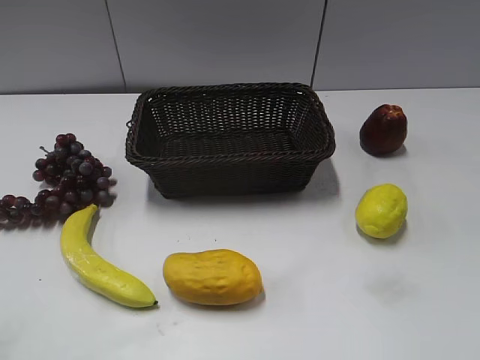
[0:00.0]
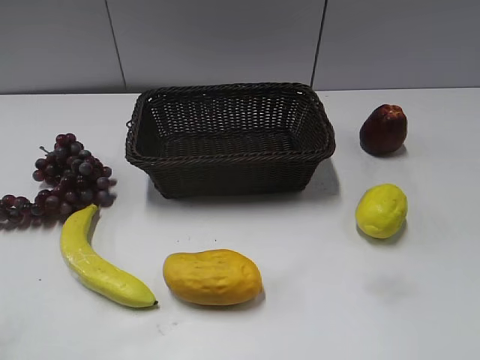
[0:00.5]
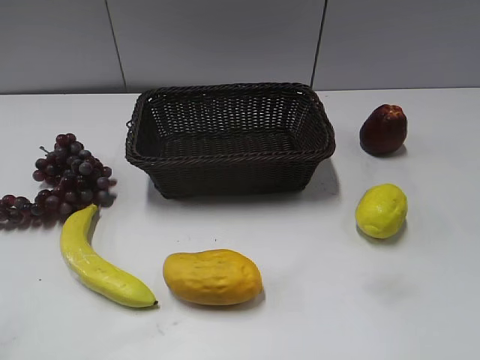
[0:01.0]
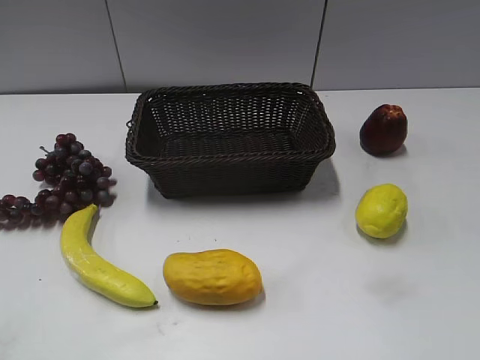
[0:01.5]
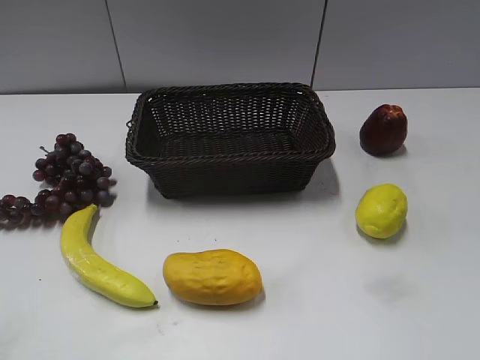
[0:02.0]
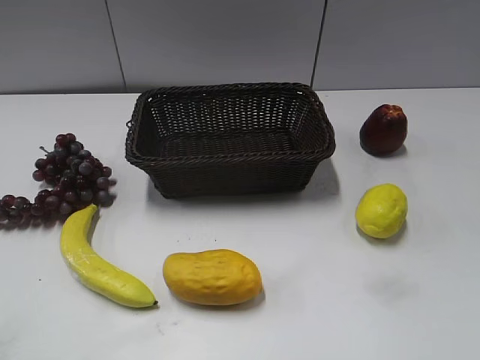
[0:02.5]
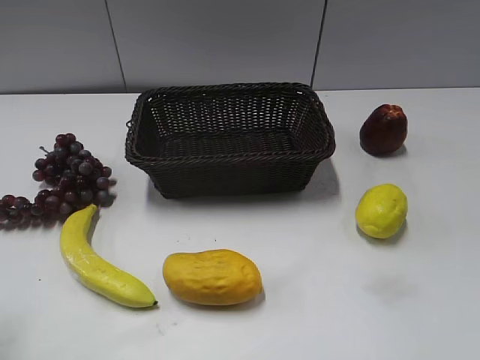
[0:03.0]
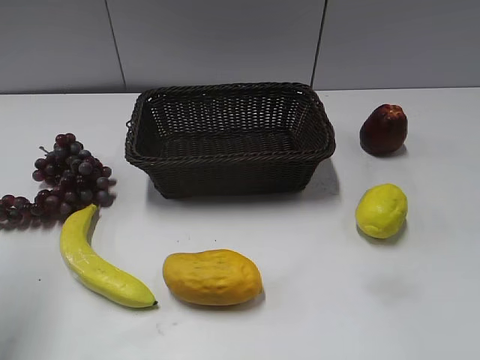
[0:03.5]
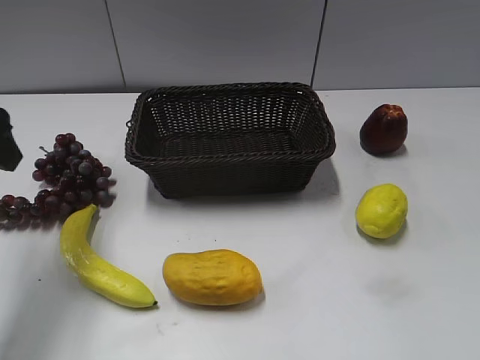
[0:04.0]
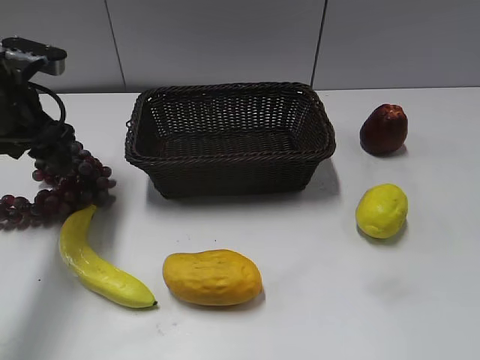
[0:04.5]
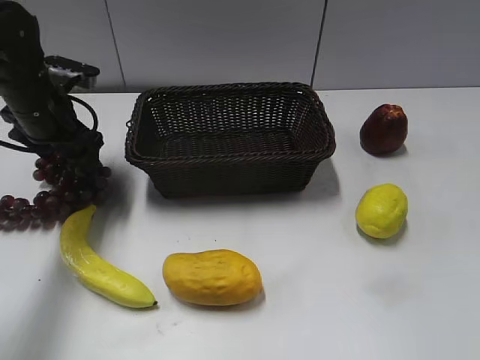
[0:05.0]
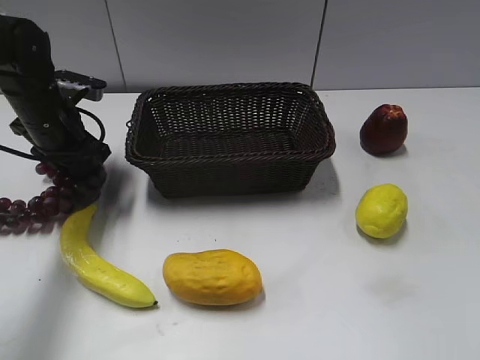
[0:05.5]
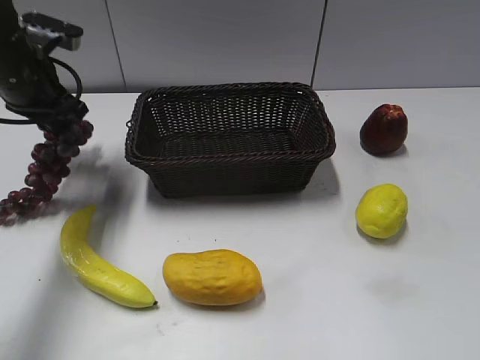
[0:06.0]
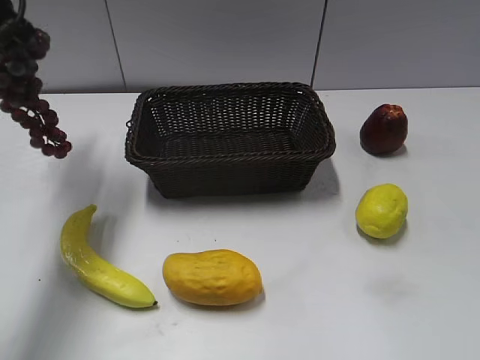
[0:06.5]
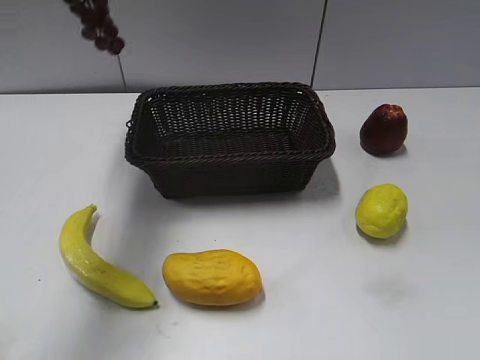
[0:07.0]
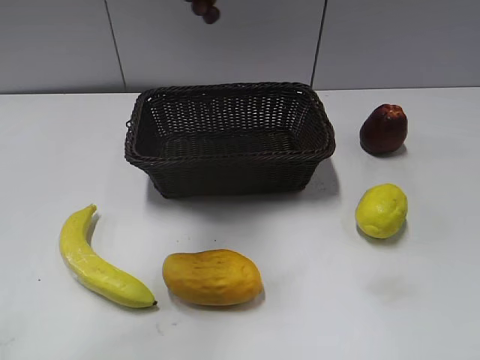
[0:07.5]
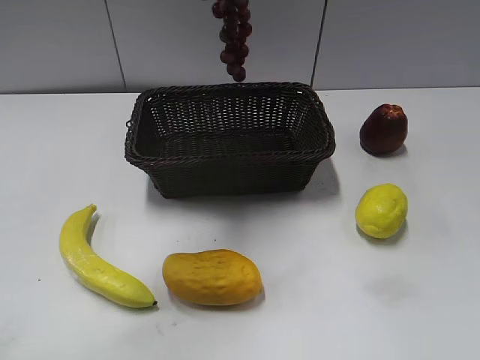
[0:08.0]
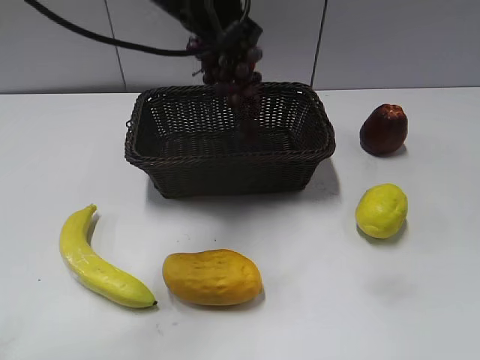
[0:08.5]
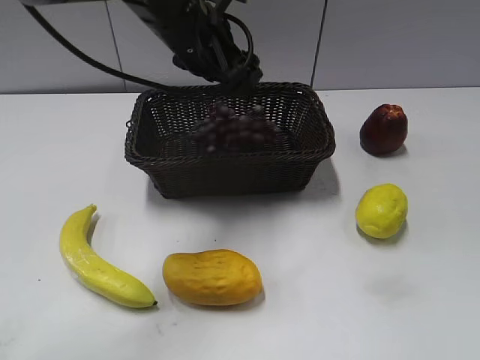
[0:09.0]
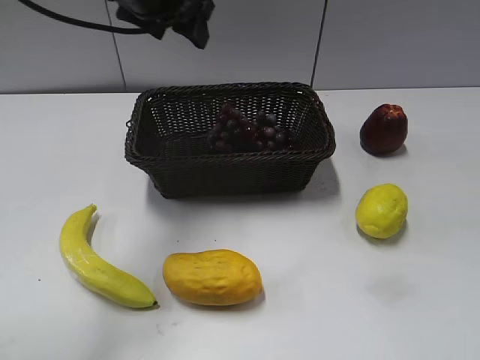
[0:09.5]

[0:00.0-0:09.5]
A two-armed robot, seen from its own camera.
Step, 0:04.0 to 0:05.5: Grasp the grape with left gripper.
Step, 0:06.0 to 0:09.0: Place the grape in the basket with left gripper.
0:02.0 to 0:04.0: The left gripper heads forward, covering about 25 cm.
0:04.0 to 0:05.5: The left gripper moves forward and downward, some 20 cm, and closes up.
0:05.5 to 0:07.5: The left gripper heads upward and to the right, covering approximately 30 cm.
0:07.5 to 0:09.5: The left gripper heads downward and forward, covering some 15 cm, and opens its fingers.

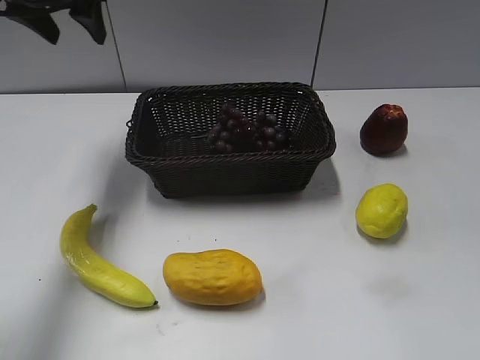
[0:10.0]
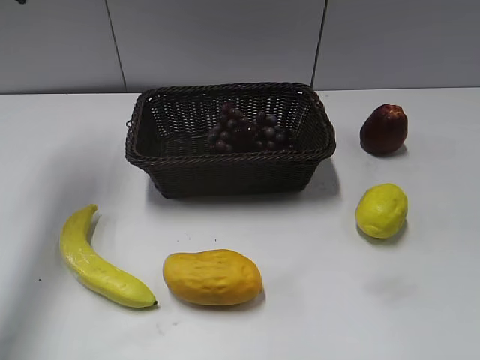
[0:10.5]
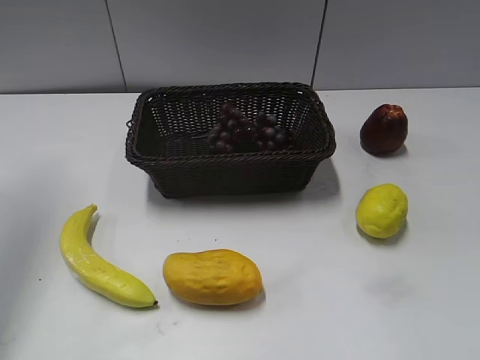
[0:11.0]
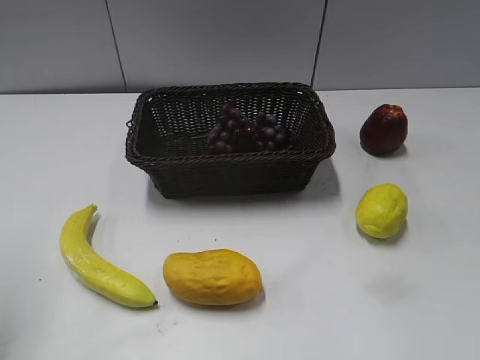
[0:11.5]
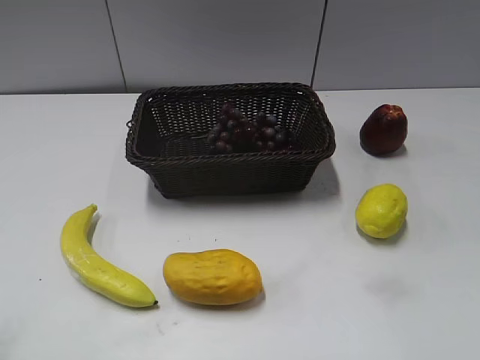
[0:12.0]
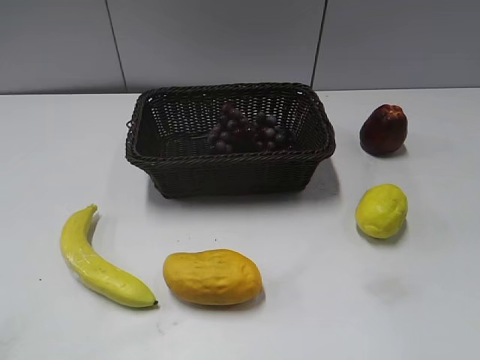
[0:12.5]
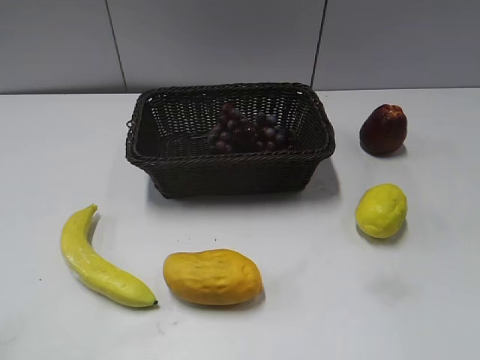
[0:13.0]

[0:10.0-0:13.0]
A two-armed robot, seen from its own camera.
0:10.0 to 0:11.5: The left gripper travels backward and to the left by approximately 25 cm.
0:11.5 to 0:13.0: The left gripper heads backward and downward, covering some 20 cm.

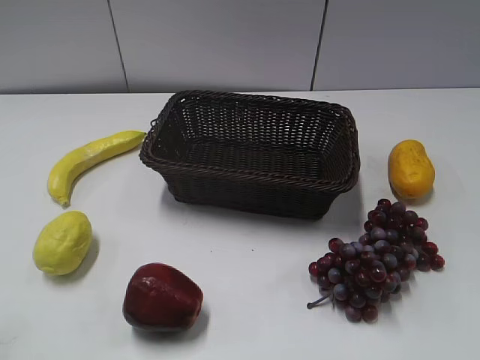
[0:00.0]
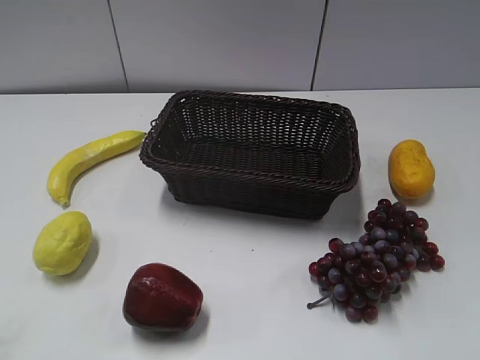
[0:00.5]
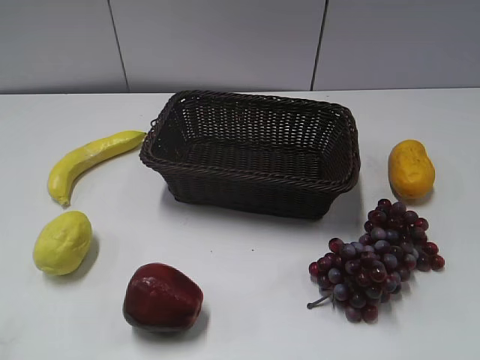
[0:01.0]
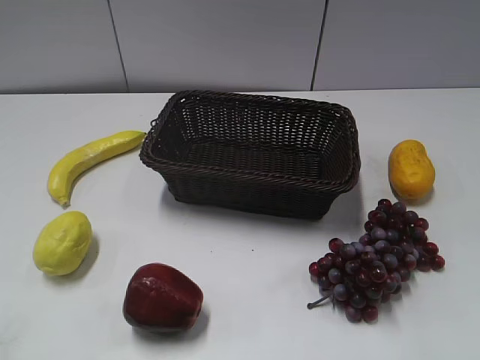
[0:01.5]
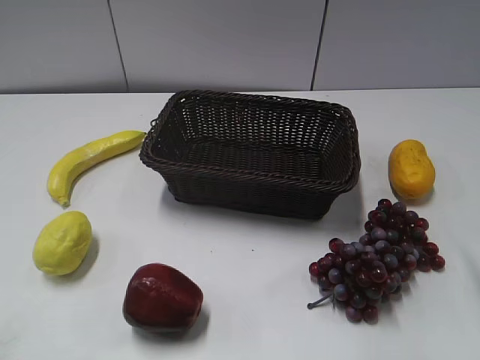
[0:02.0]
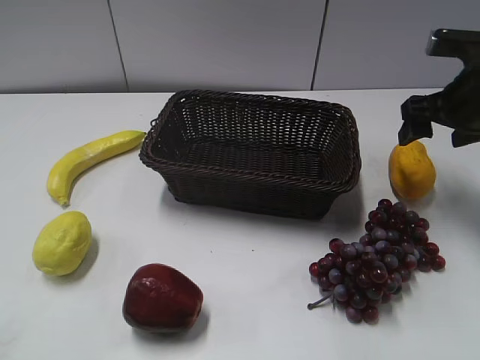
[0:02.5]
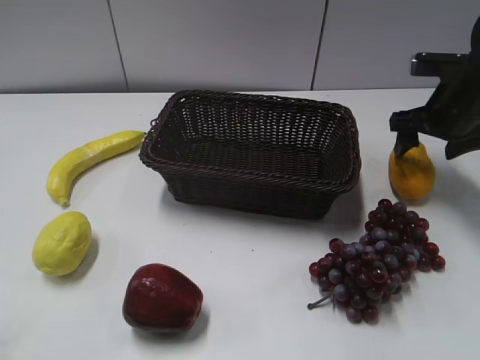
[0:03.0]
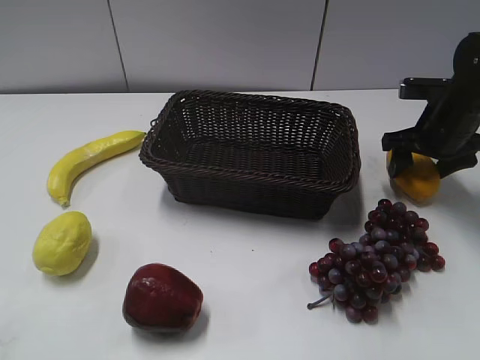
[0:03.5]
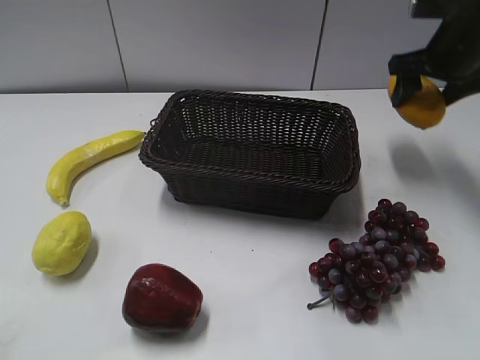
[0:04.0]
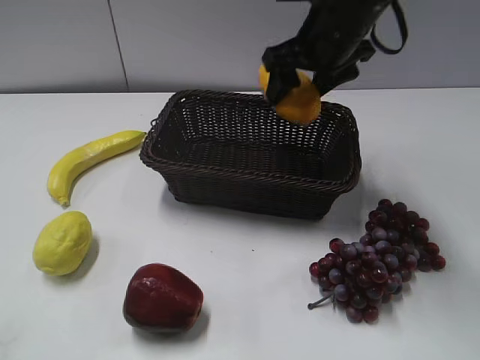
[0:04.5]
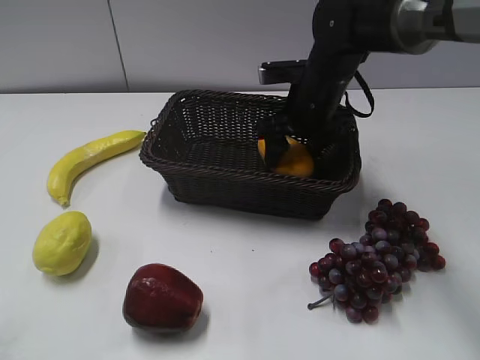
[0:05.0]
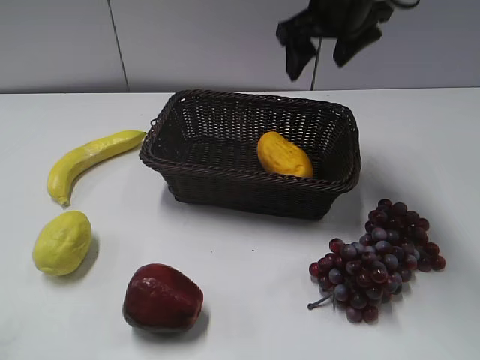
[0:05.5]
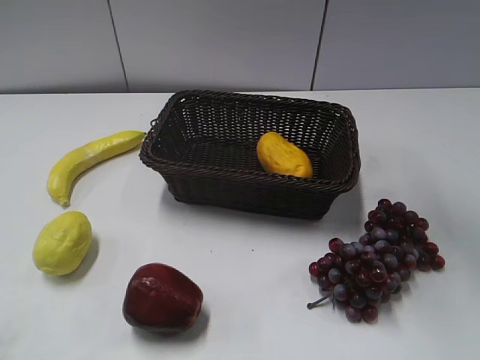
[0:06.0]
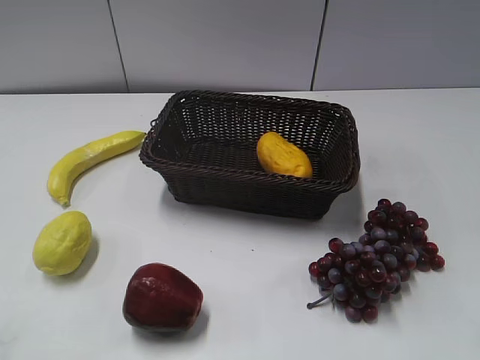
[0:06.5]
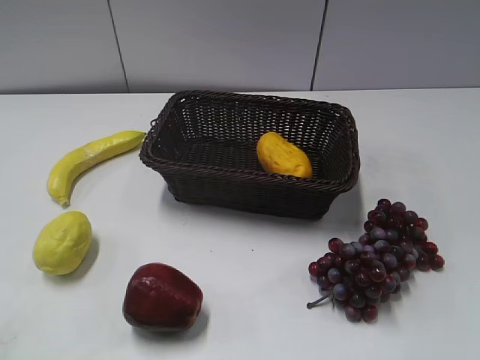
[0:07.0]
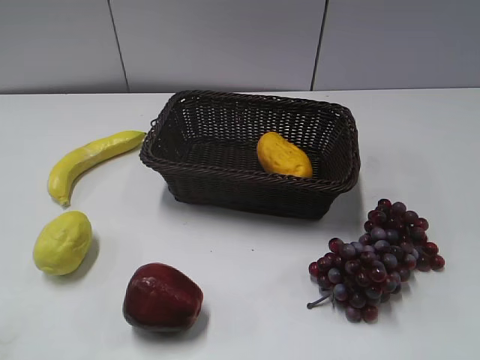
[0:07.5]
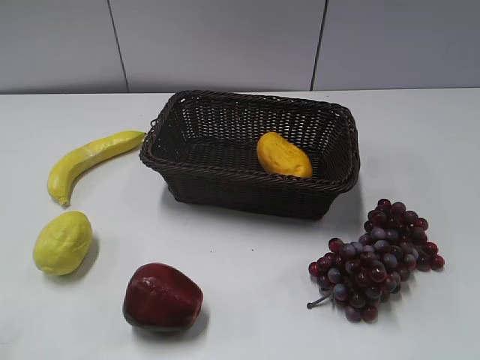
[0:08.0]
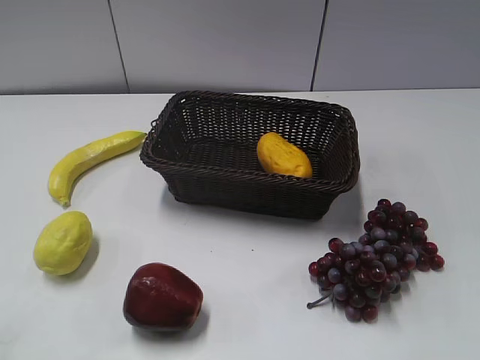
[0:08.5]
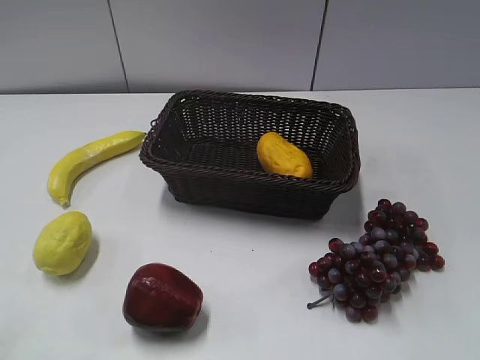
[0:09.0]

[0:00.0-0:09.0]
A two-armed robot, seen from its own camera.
Step, 0:02.5 to 0:03.0: Grasp the mango with right gripper.
Step, 0:04.0 to 0:05.0: Place the mango in the basket with right gripper.
0:02.0 to 0:04.5: The right gripper heads forward and to the left, covering about 30 cm, and opens and closes again.
0:04.5 to 0:07.0: The right gripper travels backward and to the right by some 40 cm, and opens, then closes again.

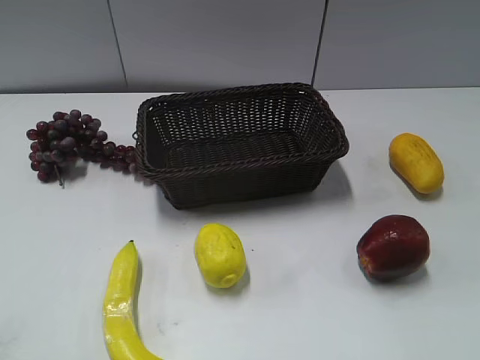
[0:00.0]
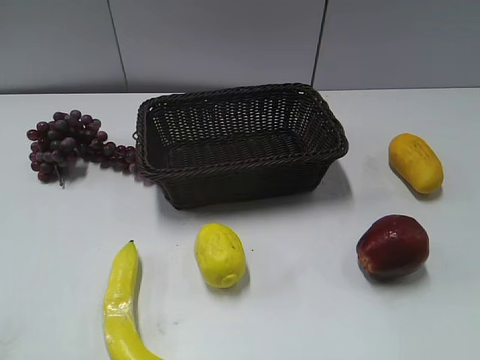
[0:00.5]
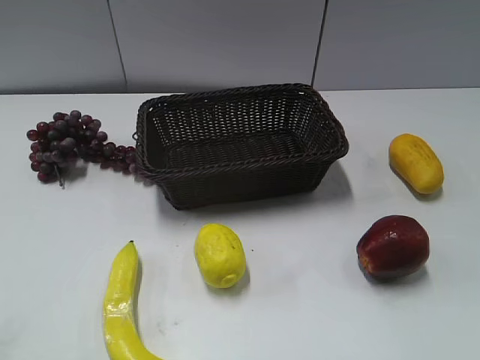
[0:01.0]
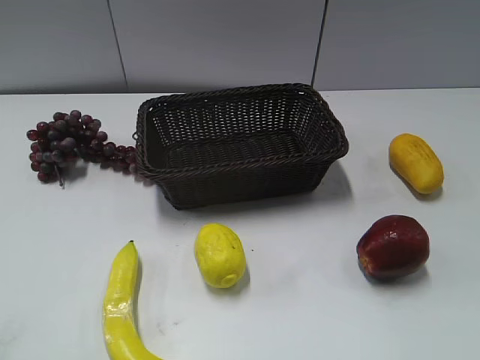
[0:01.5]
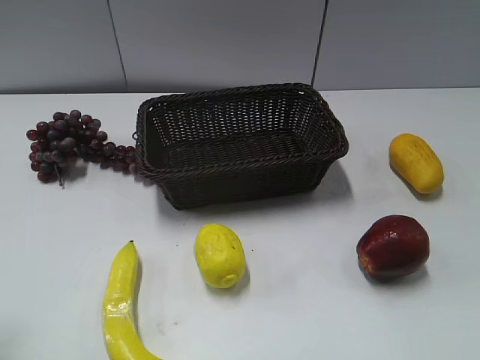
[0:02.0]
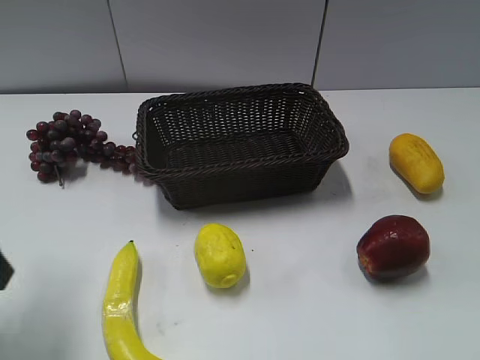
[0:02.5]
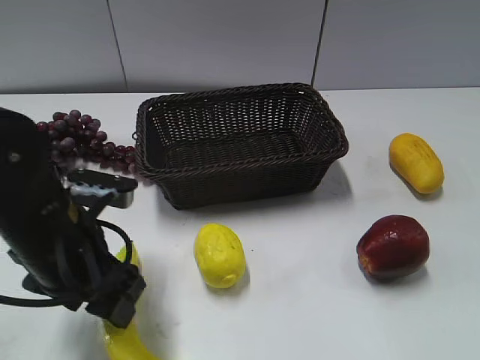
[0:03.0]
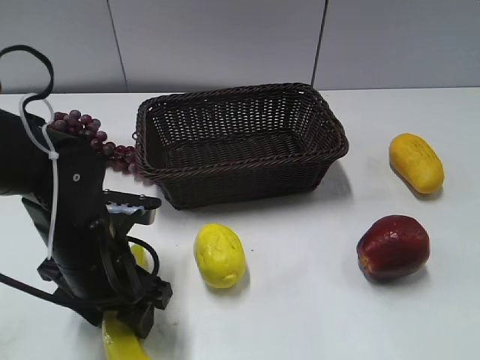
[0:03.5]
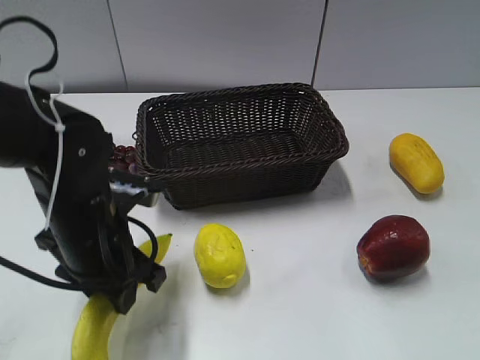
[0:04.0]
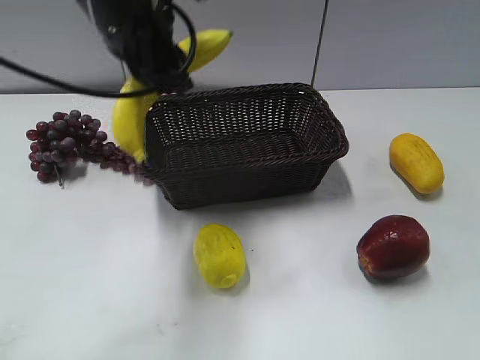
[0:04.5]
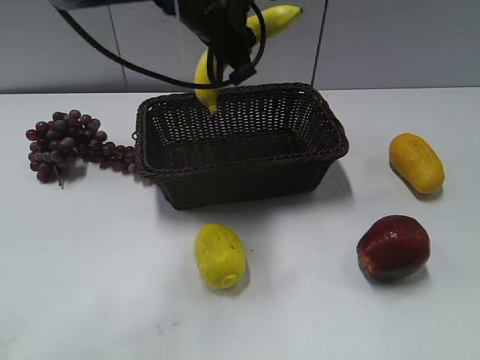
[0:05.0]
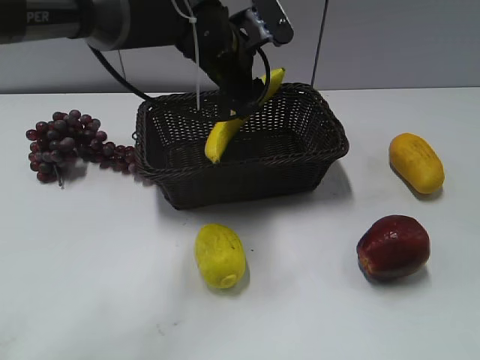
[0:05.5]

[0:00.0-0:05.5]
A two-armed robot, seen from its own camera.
Step, 0:02.5 to 0:03.5: Grasp the banana with left gripper.
0:02.0 to 0:03.5: The left gripper heads to the right, downward and forward, covering about 25 cm.
0:03.5 to 0:05.5: The left gripper shifts some 25 cm forward, to the right and upward, and closes, then reopens.
